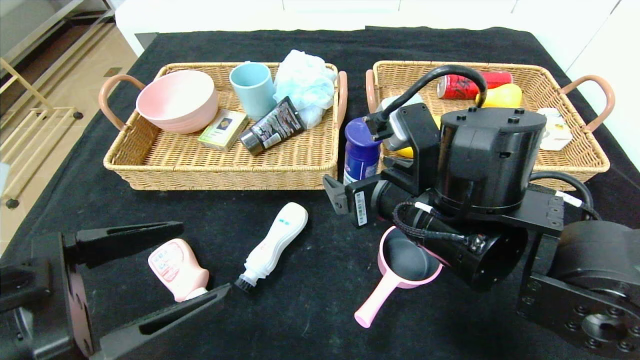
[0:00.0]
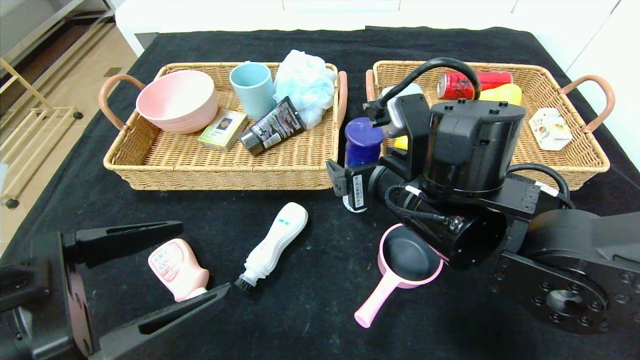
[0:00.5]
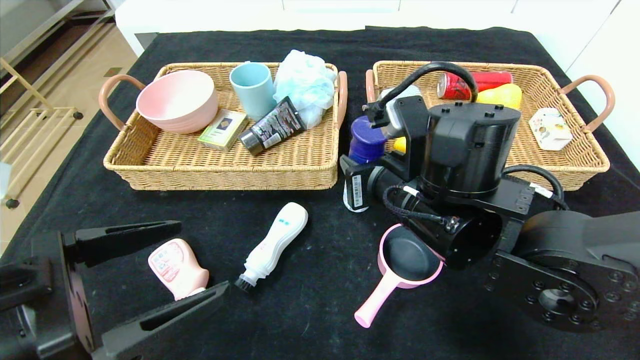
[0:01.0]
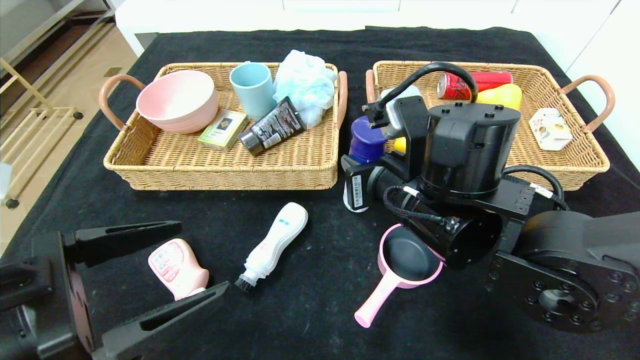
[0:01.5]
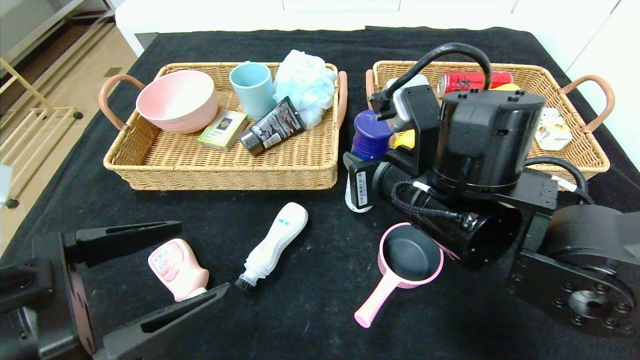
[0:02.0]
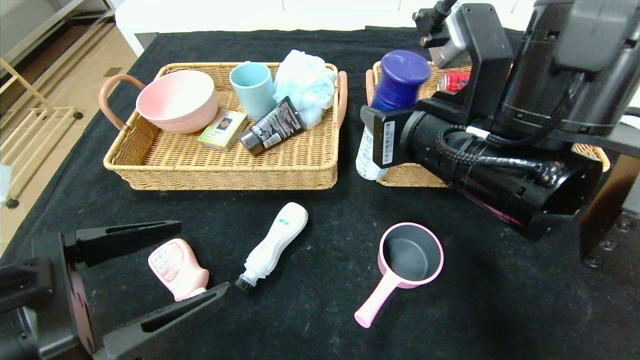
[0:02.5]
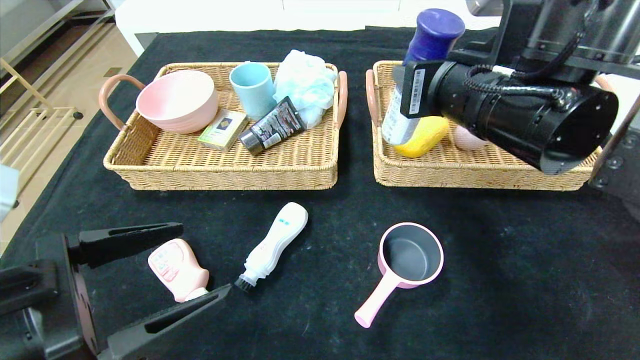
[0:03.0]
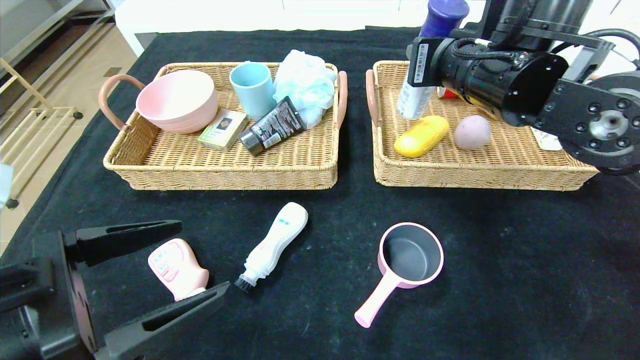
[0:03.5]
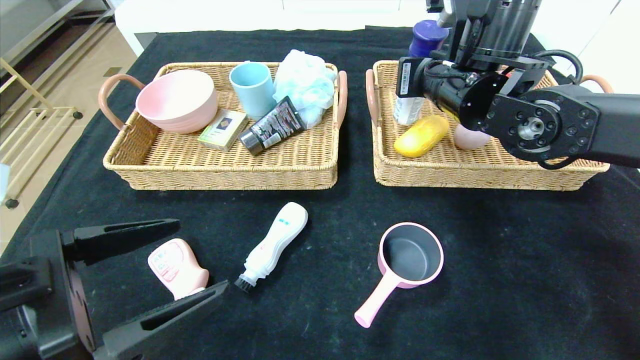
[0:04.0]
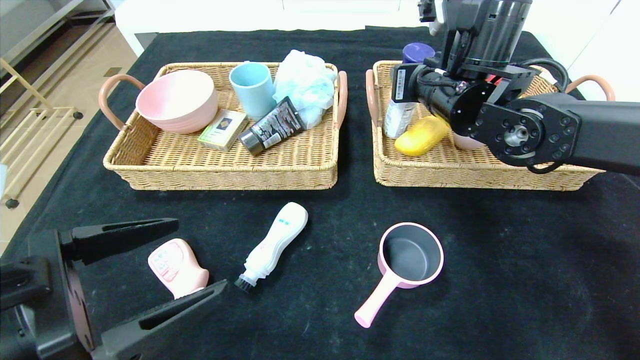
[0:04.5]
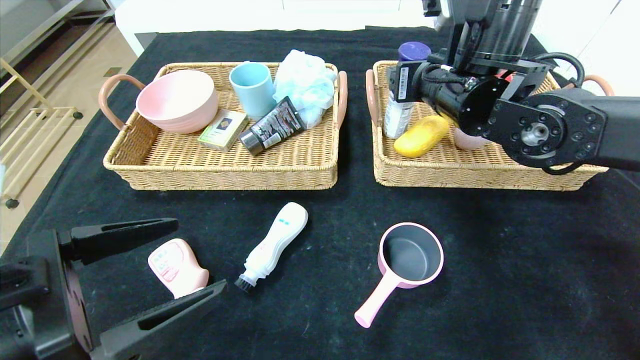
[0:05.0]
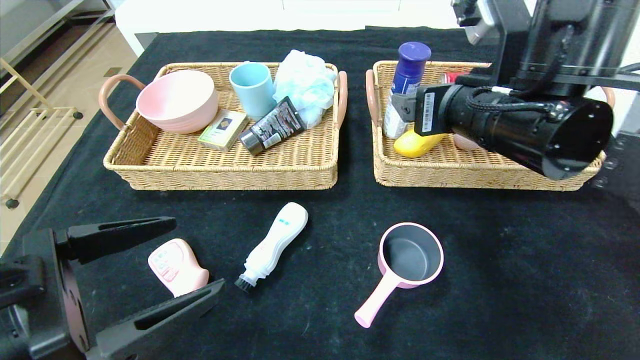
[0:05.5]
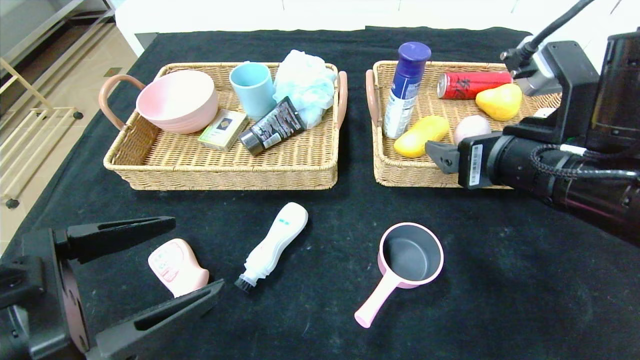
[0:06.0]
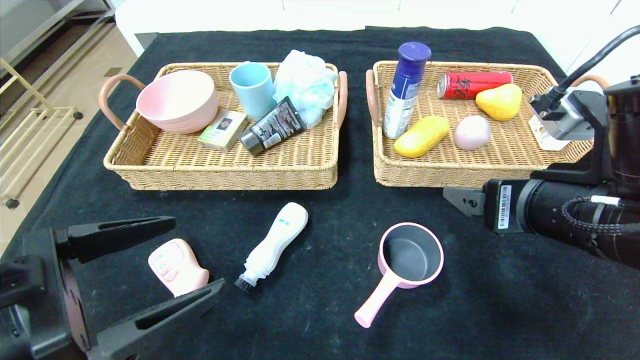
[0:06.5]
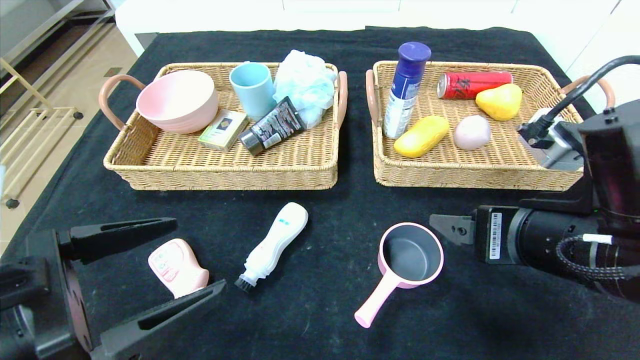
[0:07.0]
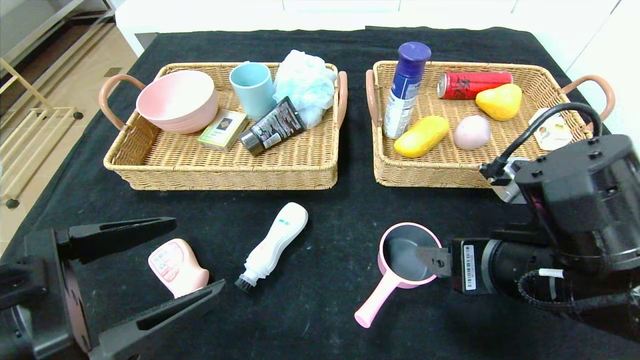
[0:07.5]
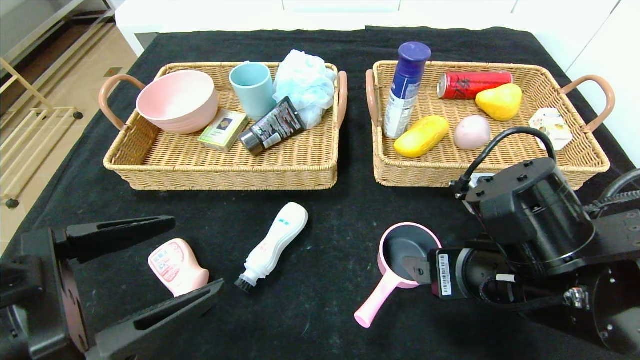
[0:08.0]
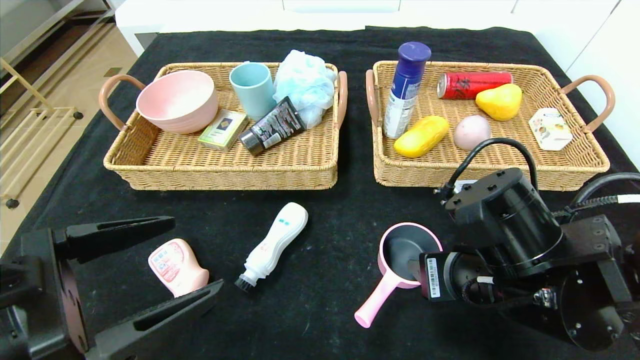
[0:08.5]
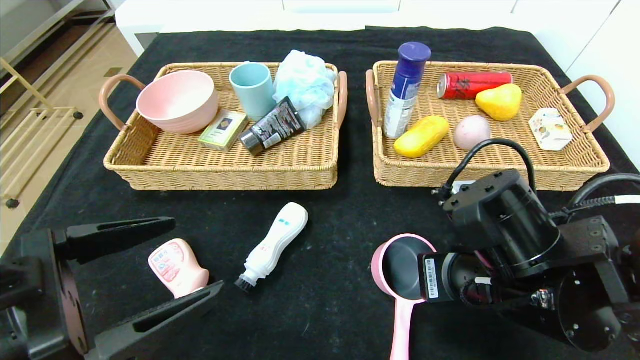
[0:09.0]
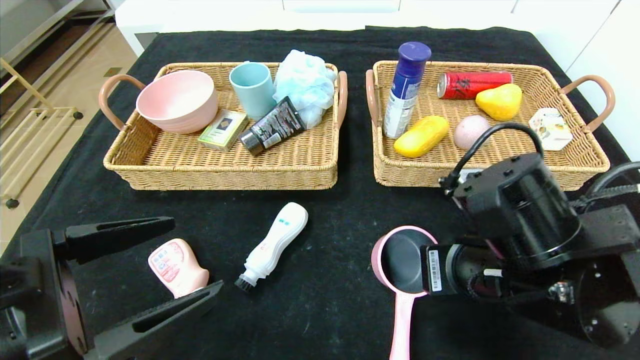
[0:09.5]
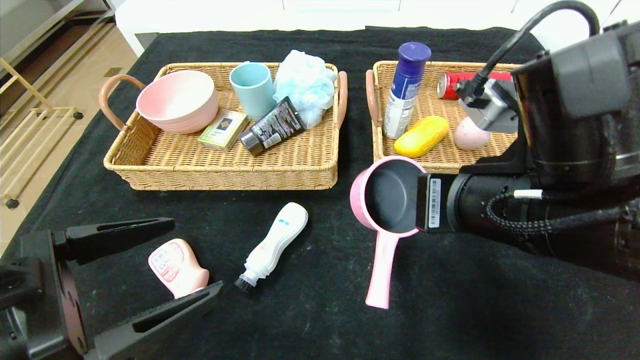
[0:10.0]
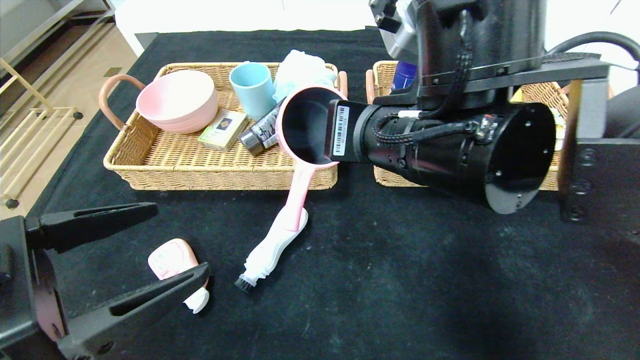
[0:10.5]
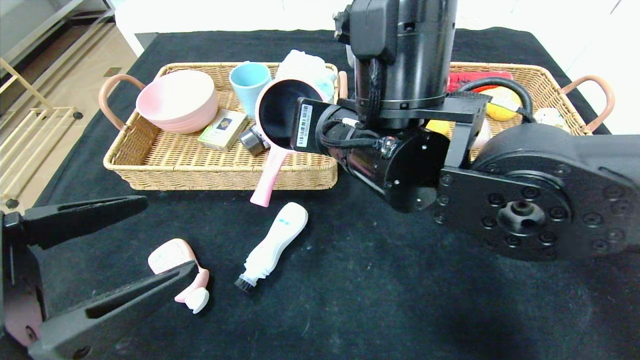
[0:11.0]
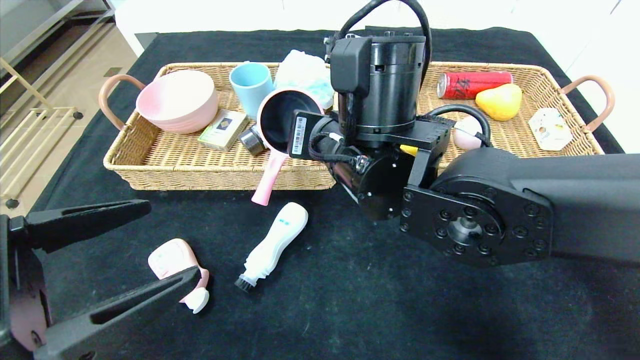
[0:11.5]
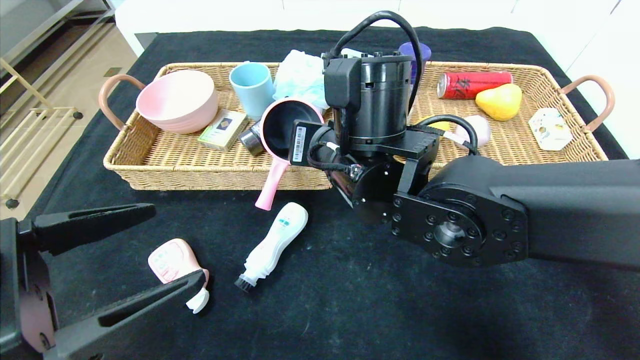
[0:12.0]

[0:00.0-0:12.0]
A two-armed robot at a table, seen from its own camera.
Step, 0:00.0 to 0:05.0: Grasp the yogurt and put it in the right basket.
0:00.0 to 0:02.0: The right gripper closes up.
0:02.0 to 0:04.0: The right gripper goes approximately 15 cm forward, upward and to the right.
0:04.0 to 0:06.0: The right gripper travels backward by some 15 cm, and opens its fingers.
0:06.0 to 0:08.0: The right gripper goes roughly 10 cm downward.
0:08.0 to 0:10.0: The right gripper travels upward by some 10 cm, and closes up.
0:10.0 to 0:12.0: The right gripper shifts about 15 cm to the left and forward.

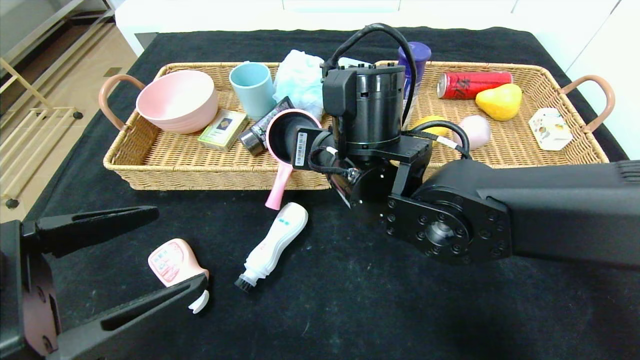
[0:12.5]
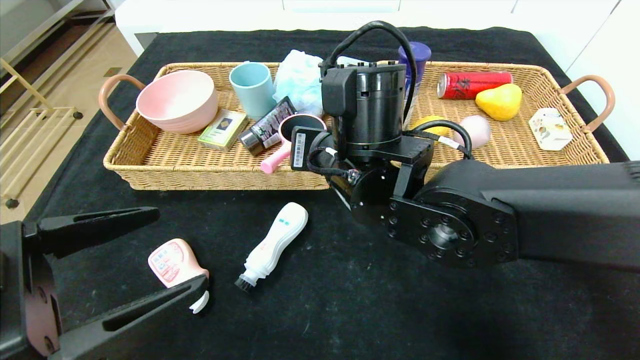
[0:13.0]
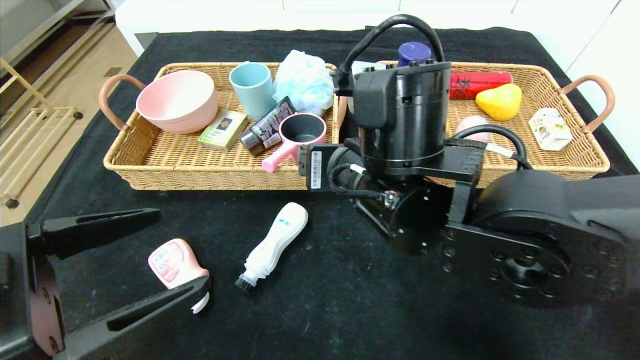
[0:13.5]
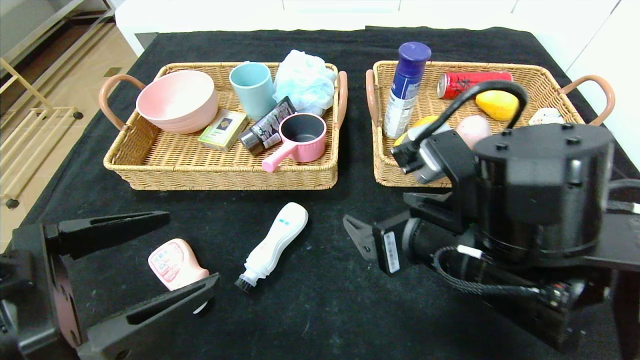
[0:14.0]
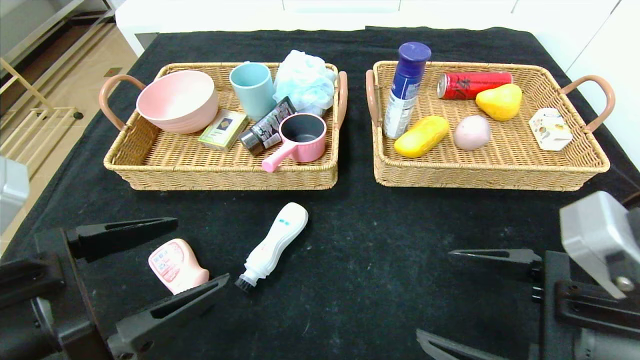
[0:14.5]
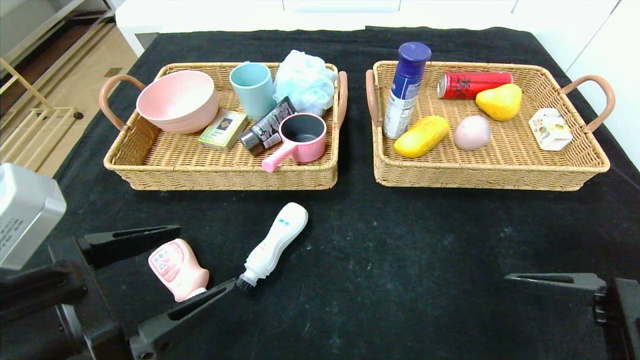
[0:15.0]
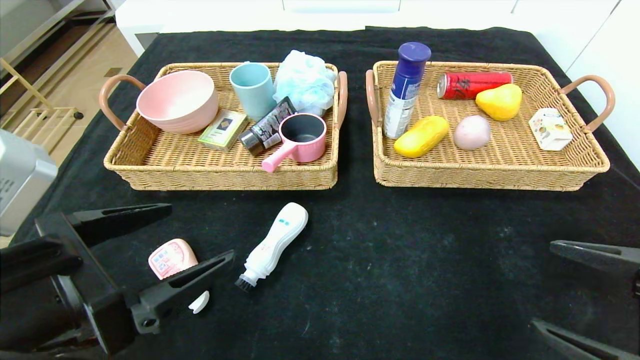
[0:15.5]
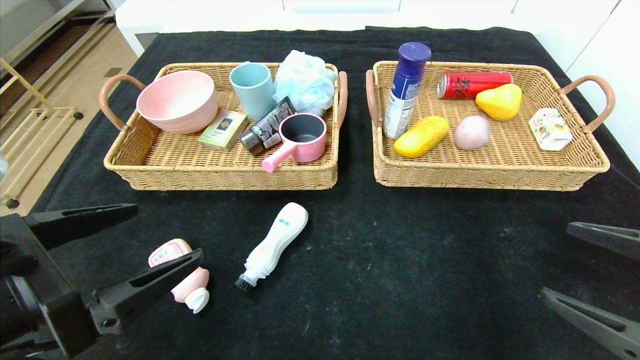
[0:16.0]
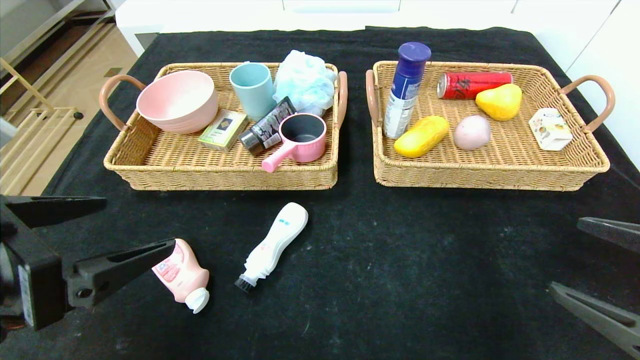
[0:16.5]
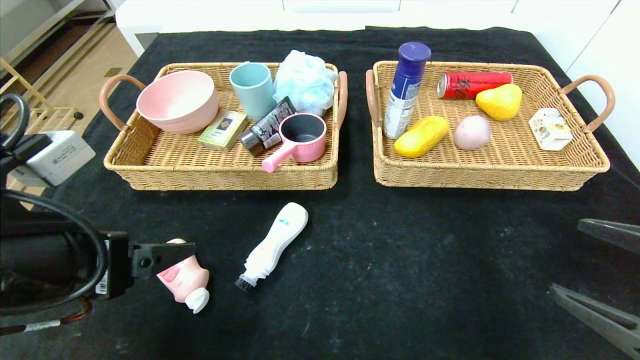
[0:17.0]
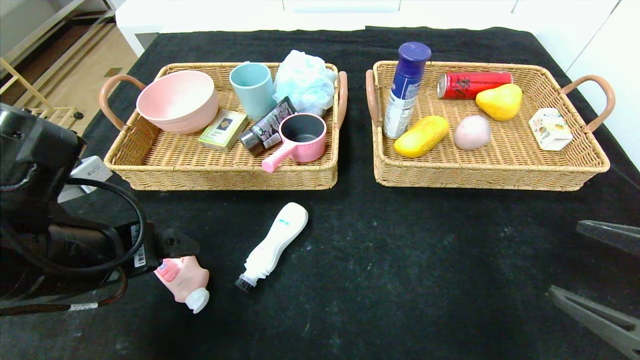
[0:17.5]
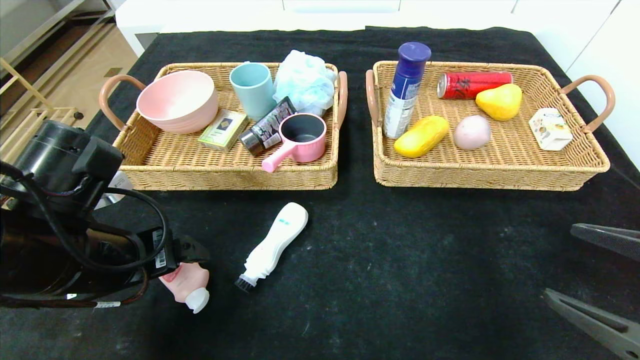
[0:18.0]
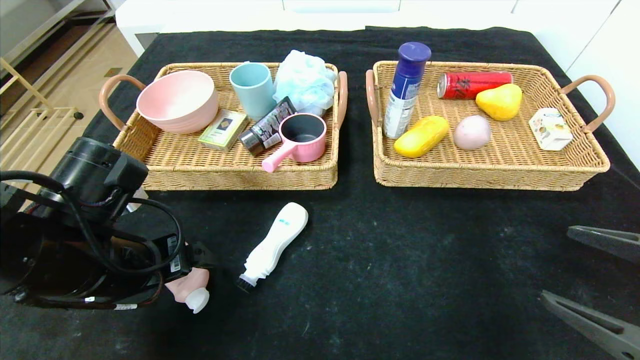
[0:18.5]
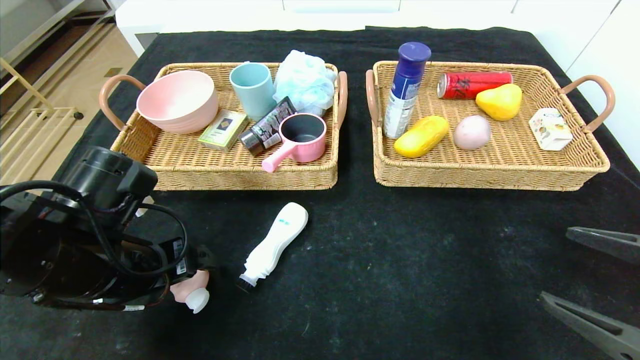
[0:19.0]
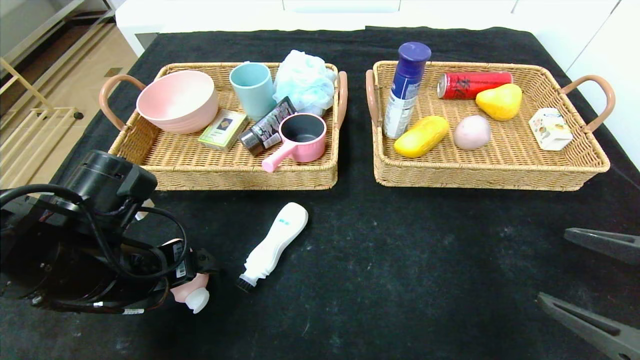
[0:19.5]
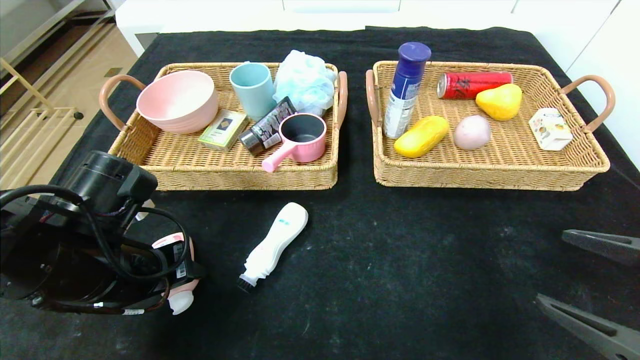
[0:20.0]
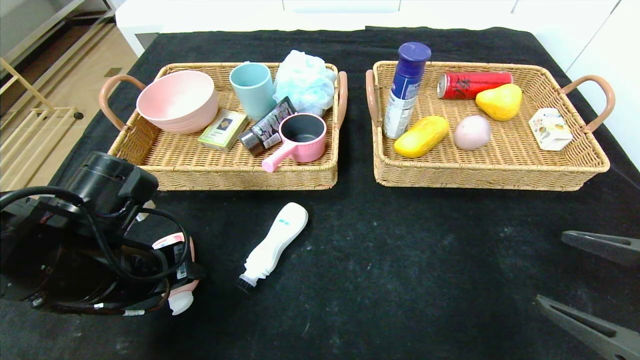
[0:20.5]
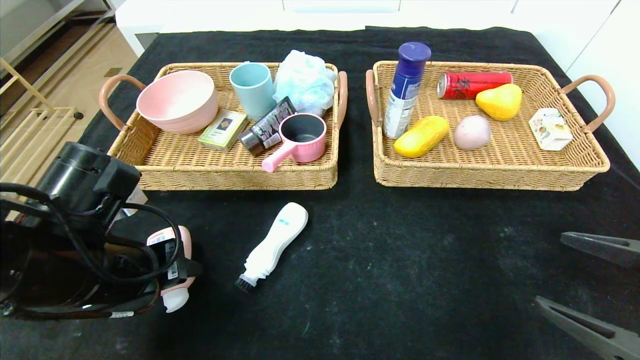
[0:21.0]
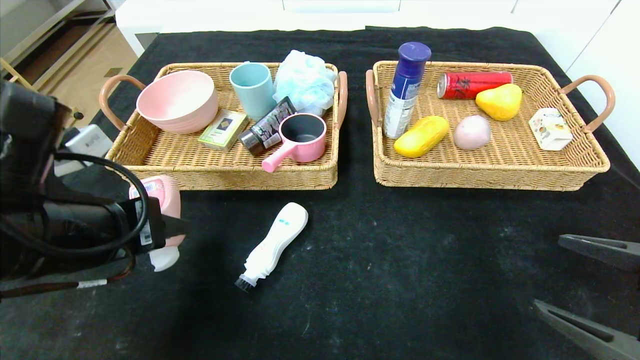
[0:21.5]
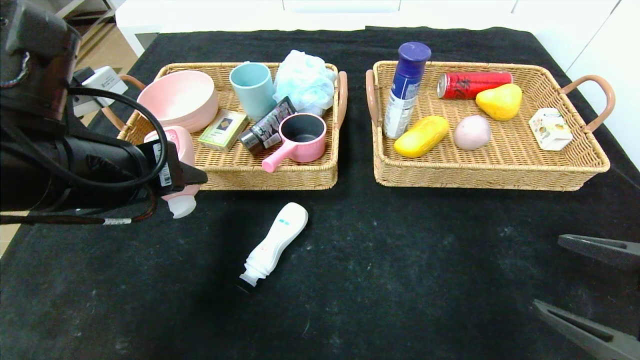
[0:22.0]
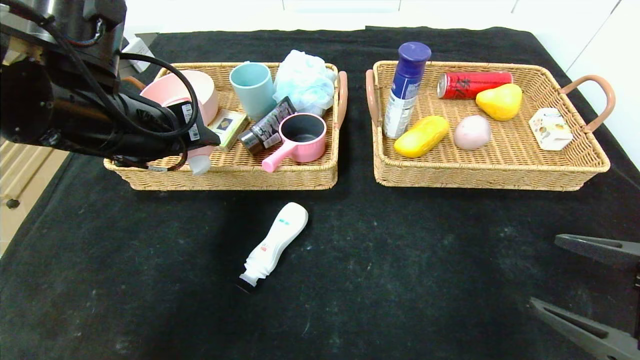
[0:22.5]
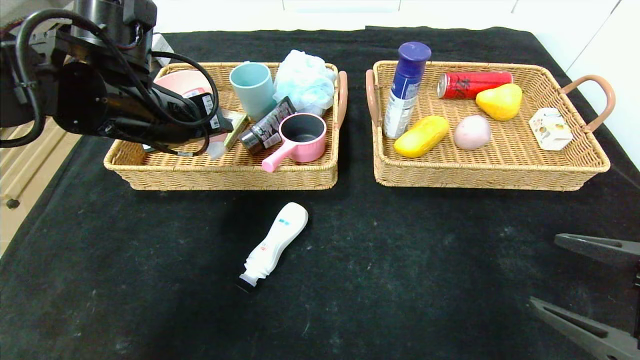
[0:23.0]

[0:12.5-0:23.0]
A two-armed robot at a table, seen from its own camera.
0:12.5 to 0:14.5: The right gripper travels to the right and backward by some 25 cm, and opens up.
0:14.5 to 0:16.5: The right gripper heads to the right, covering some 10 cm.
0:16.5 to 0:19.0: The left gripper heads forward and downward, covering about 15 cm.
0:19.0 to 0:21.0: The left gripper closes up.
0:21.0 to 0:23.0: The left gripper moves forward and upward, some 15 cm.
